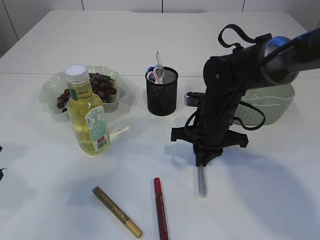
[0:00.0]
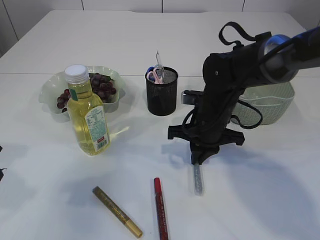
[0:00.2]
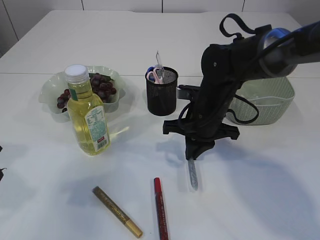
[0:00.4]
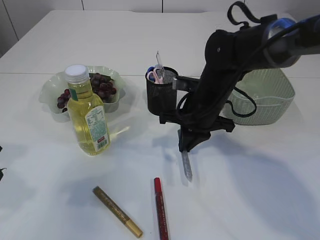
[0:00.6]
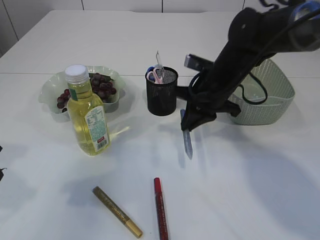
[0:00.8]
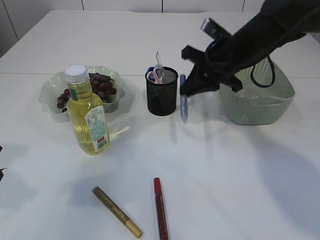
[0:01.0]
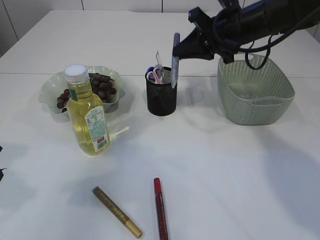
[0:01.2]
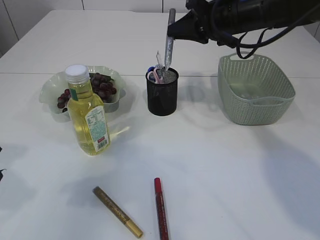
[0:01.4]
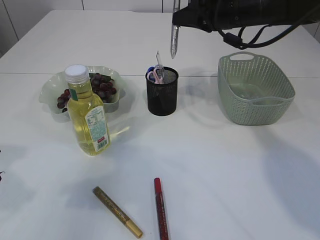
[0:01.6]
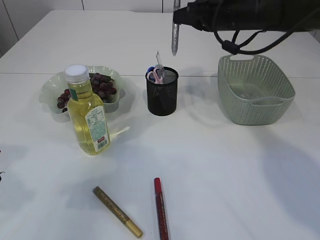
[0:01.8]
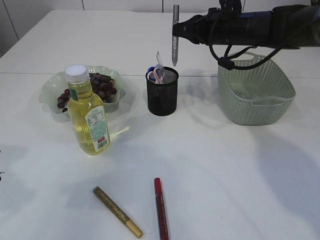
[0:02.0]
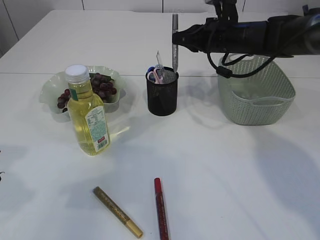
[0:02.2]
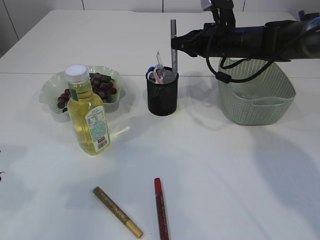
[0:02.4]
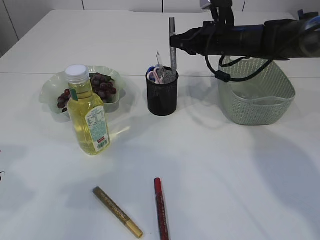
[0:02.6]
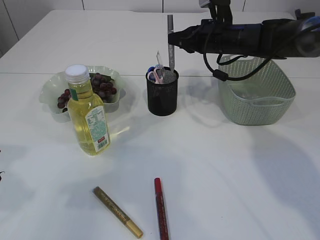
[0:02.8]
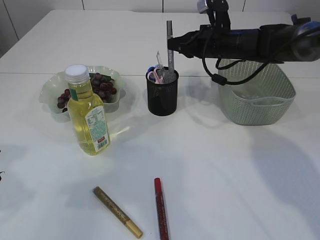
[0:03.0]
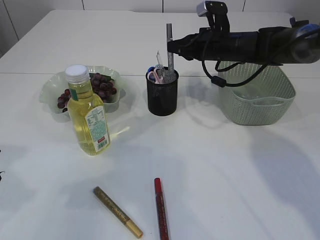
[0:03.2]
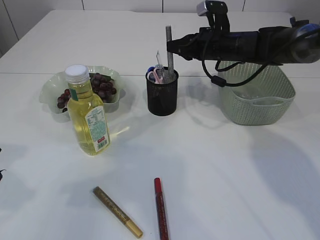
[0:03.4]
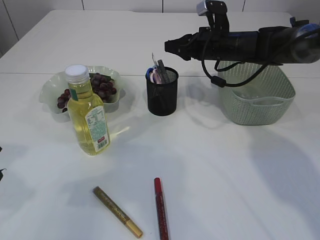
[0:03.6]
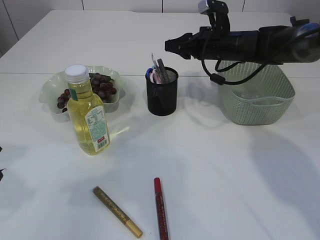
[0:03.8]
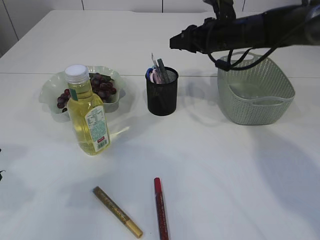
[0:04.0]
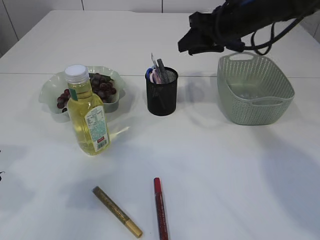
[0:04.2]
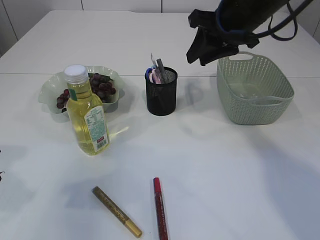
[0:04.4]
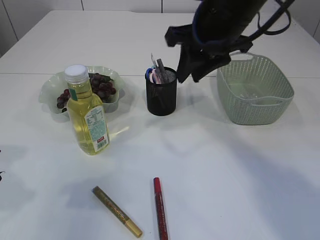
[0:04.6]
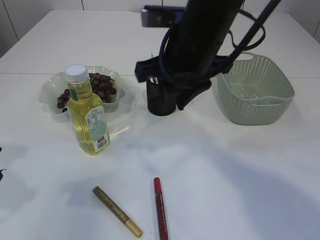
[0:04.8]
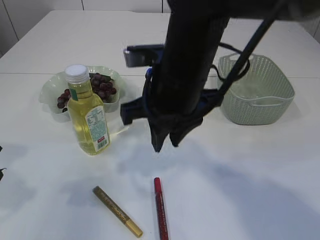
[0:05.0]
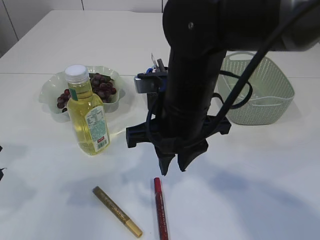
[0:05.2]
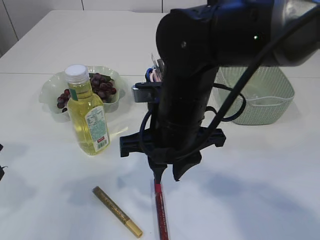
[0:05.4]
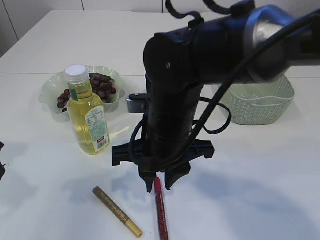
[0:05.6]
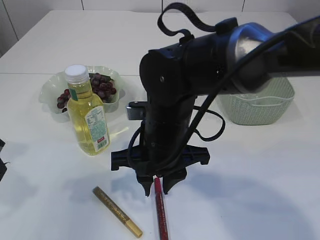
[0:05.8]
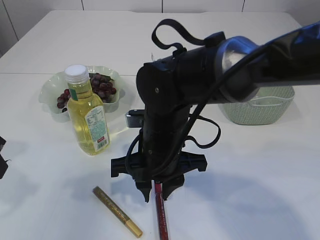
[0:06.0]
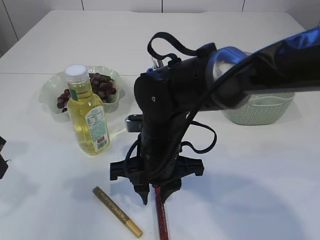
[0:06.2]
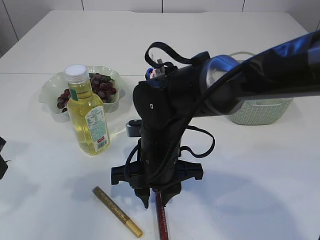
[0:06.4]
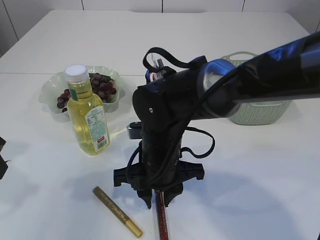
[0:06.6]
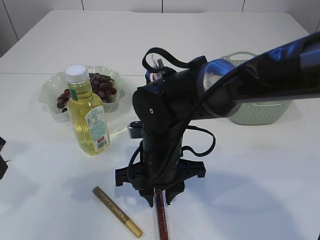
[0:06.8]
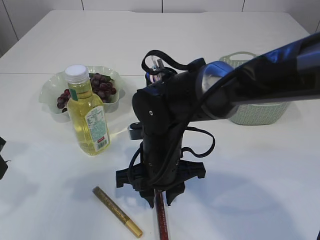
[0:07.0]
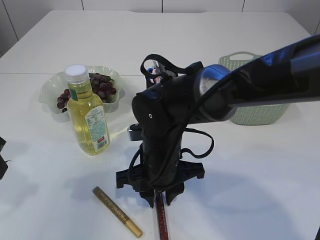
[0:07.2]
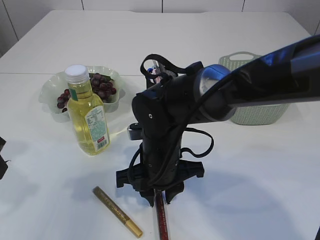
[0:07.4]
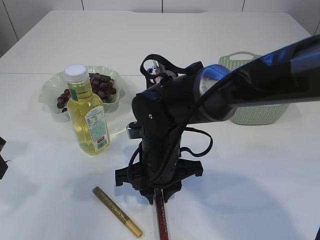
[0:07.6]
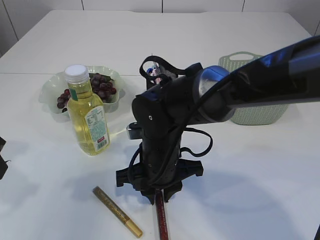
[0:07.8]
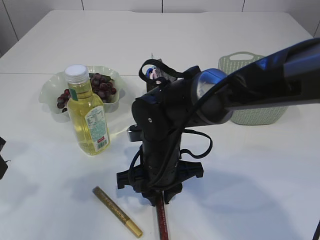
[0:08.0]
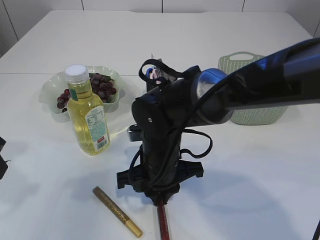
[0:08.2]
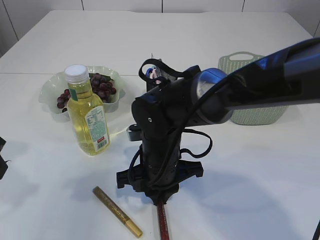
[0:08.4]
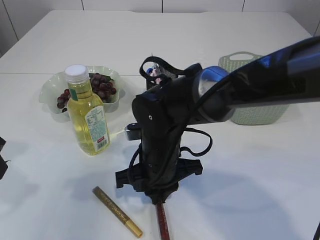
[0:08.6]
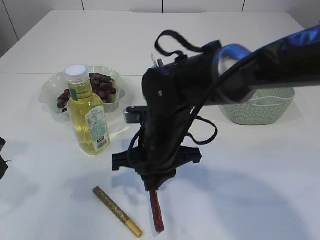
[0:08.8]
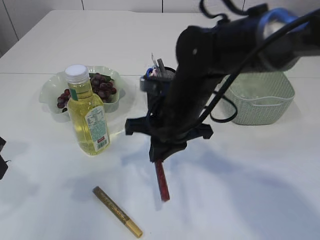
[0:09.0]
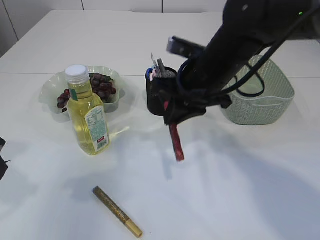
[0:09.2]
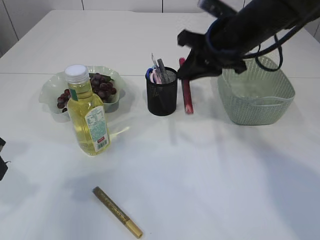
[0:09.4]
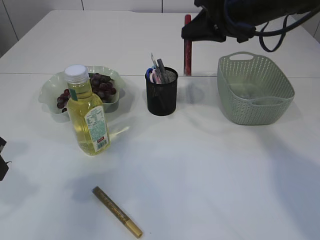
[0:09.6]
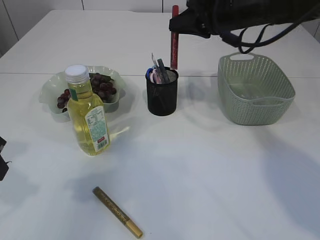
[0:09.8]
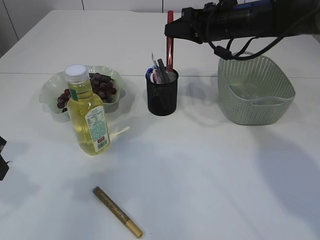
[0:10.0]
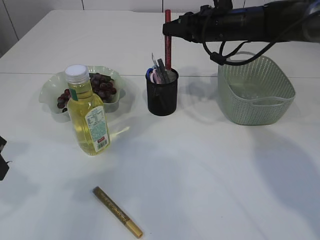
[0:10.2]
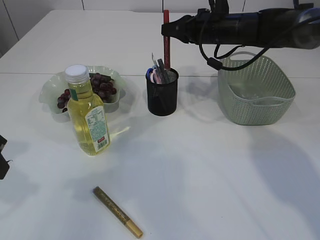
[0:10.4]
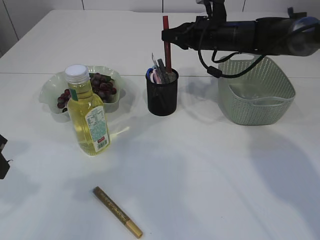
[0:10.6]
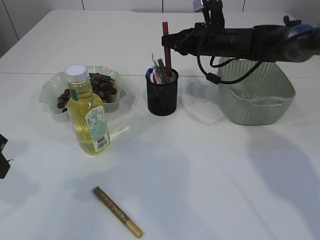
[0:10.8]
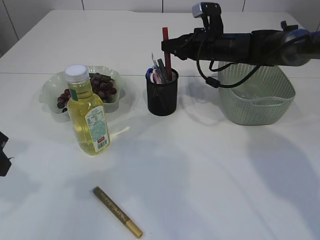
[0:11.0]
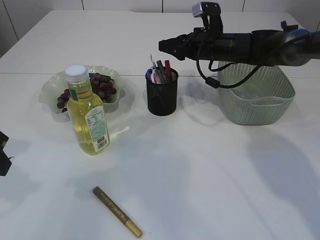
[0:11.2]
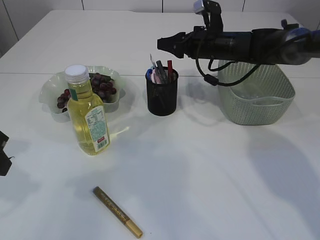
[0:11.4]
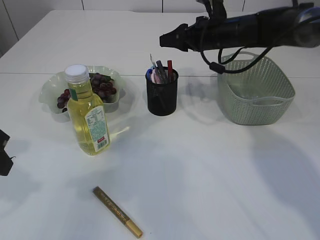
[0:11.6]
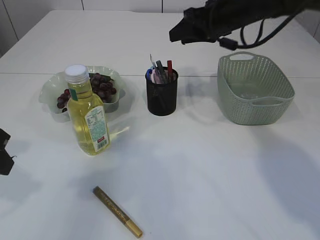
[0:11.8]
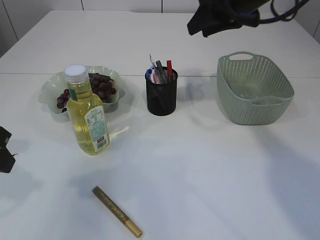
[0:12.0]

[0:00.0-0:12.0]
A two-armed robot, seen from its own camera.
Step, 0:00.8 to 0:04.0: place the silver glue into the pen holder.
Step, 0:04.2 to 0:09.0: pick up the red glue.
Step, 0:09.2 to 0:11.8: place the red glue into the pen holder.
0:00.0 to 0:01.6: The right gripper is displaced upward and forward by about 20 cm.
0:01.6 to 0:03.0: The right gripper moves downward, about 10 cm.
0:03.0 to 0:04.4: The right gripper moves upward and backward, roughly 15 cm, and opens its fingers.
0:04.4 to 0:06.0: The right gripper moves to the left, downward and backward, about 25 cm.
0:06.0 to 0:07.6: The grippers make only small movements.
0:07.6 to 0:09.0: The right gripper moves upward, some 5 cm.
0:09.0 to 0:10.4: The right gripper goes roughly 20 cm forward and to the right.
0:10.4 to 0:12.0: The right gripper heads upward and backward, covering approximately 10 cm, and opens.

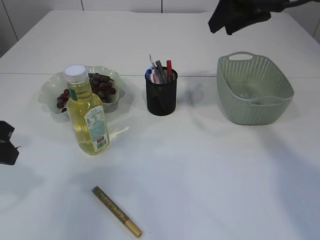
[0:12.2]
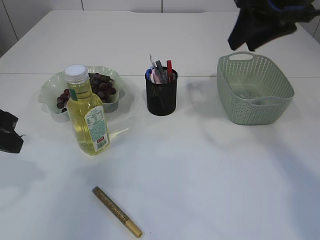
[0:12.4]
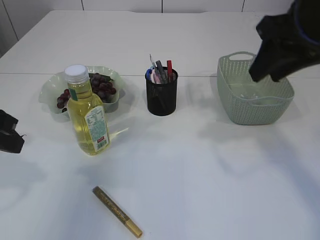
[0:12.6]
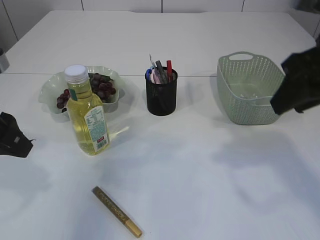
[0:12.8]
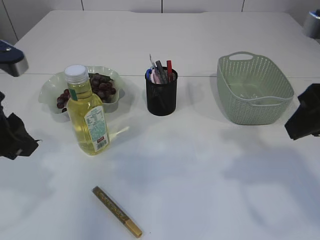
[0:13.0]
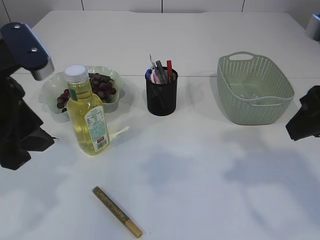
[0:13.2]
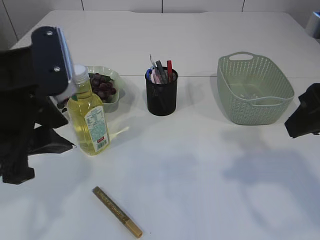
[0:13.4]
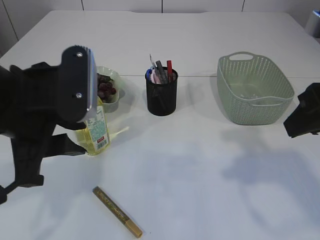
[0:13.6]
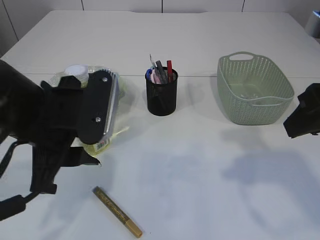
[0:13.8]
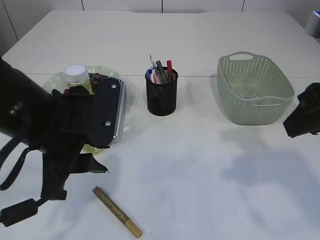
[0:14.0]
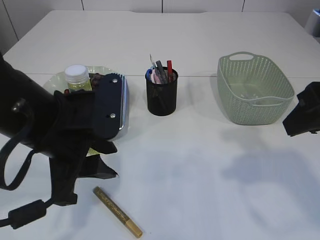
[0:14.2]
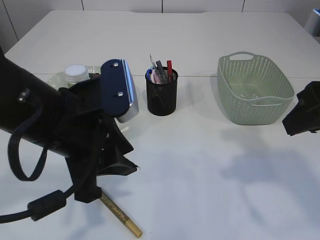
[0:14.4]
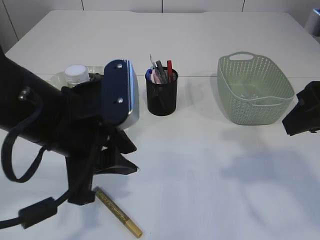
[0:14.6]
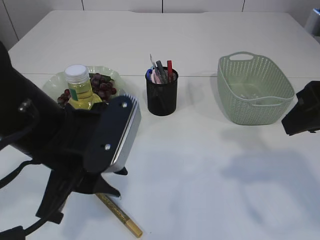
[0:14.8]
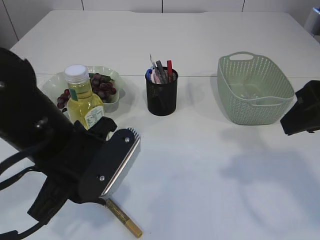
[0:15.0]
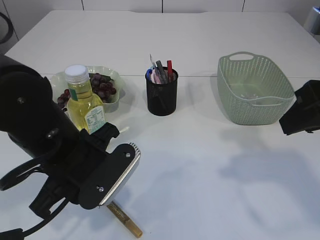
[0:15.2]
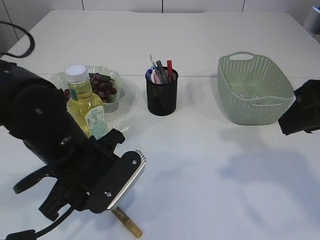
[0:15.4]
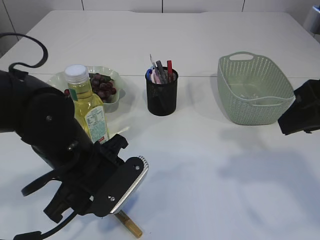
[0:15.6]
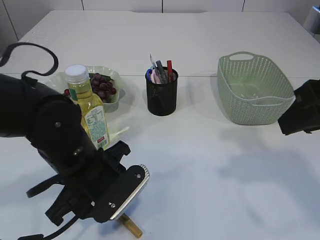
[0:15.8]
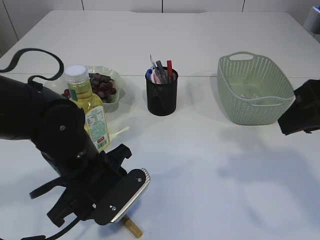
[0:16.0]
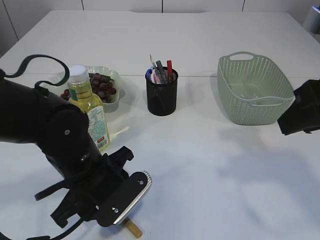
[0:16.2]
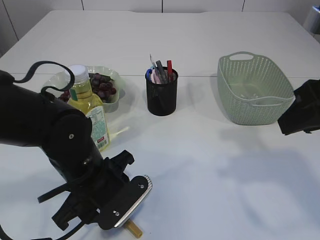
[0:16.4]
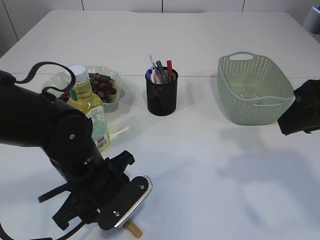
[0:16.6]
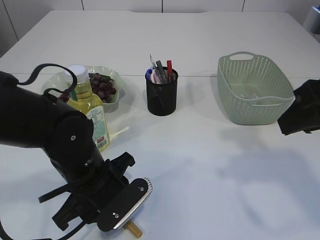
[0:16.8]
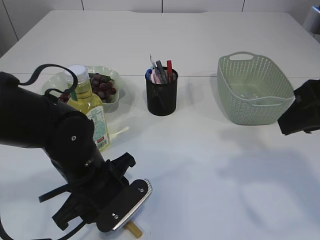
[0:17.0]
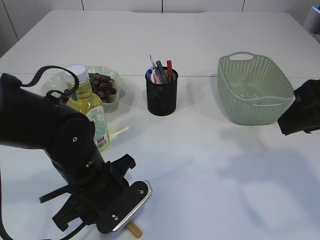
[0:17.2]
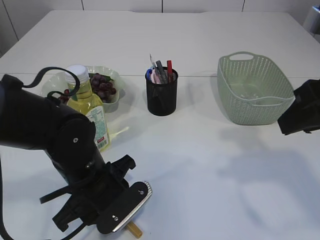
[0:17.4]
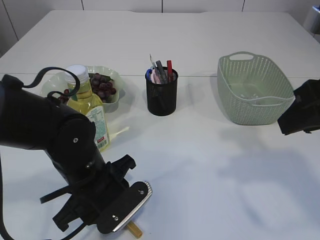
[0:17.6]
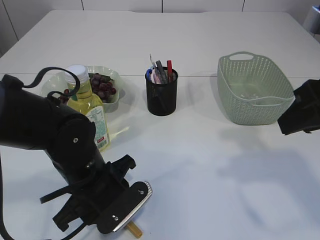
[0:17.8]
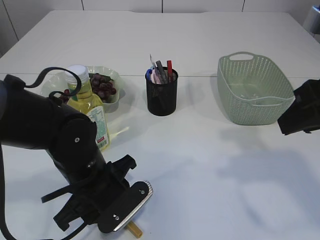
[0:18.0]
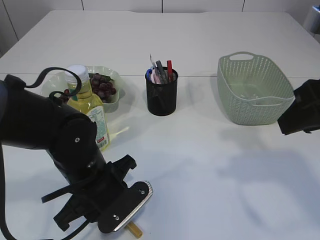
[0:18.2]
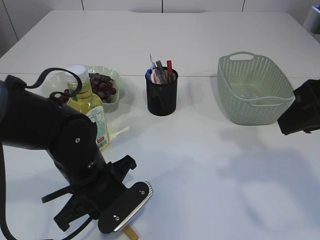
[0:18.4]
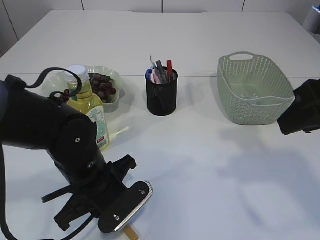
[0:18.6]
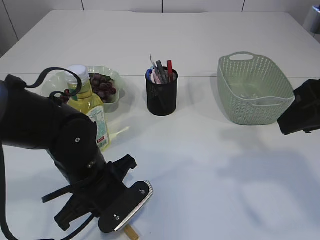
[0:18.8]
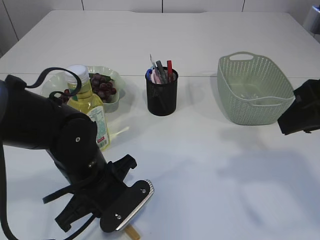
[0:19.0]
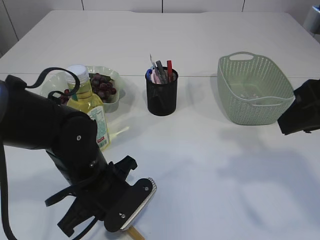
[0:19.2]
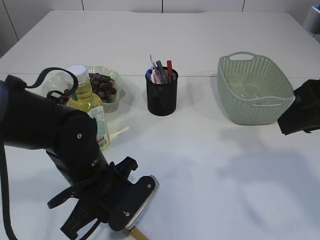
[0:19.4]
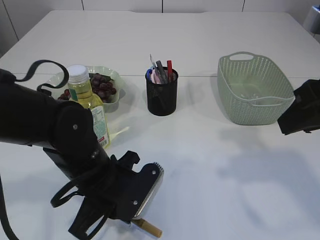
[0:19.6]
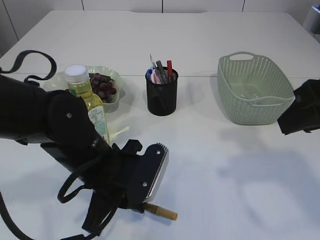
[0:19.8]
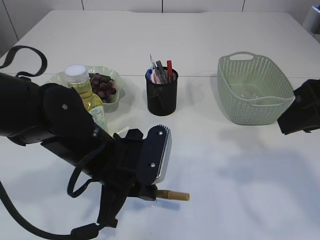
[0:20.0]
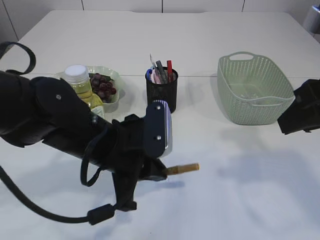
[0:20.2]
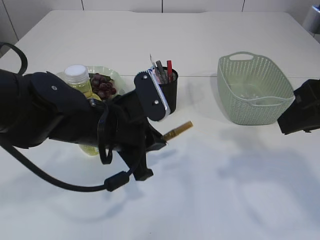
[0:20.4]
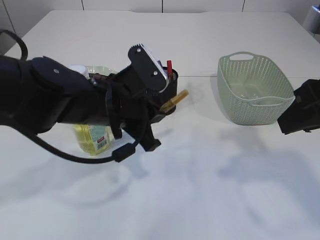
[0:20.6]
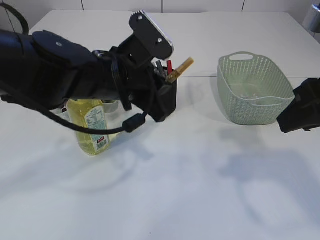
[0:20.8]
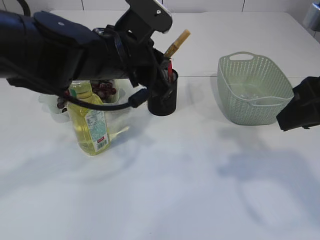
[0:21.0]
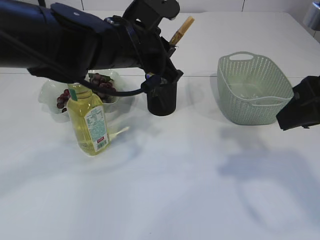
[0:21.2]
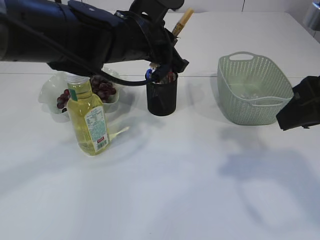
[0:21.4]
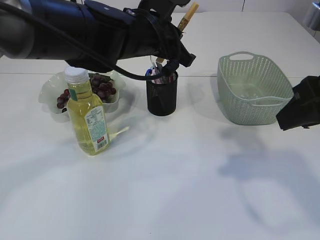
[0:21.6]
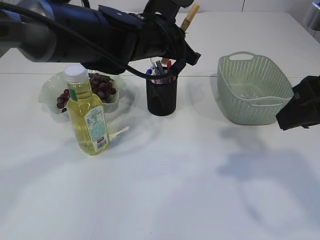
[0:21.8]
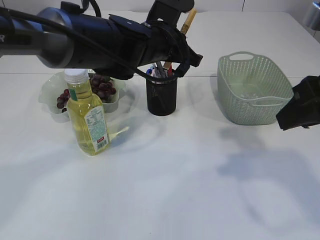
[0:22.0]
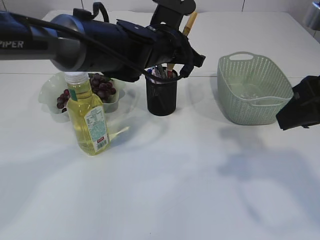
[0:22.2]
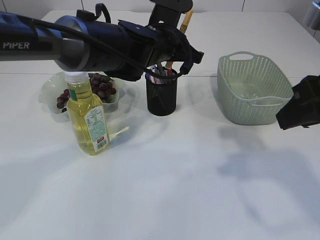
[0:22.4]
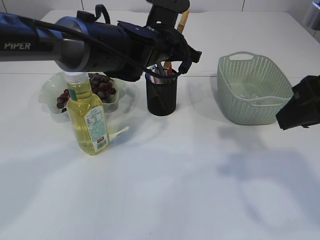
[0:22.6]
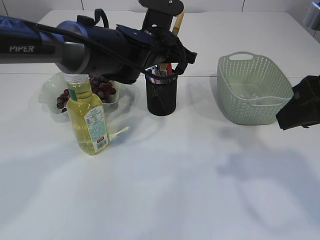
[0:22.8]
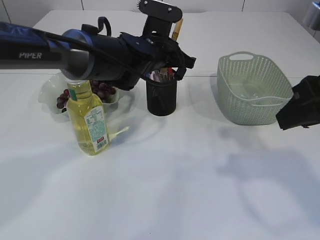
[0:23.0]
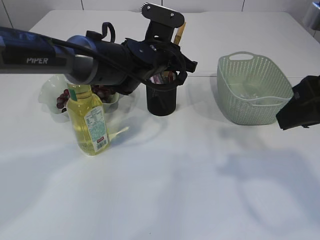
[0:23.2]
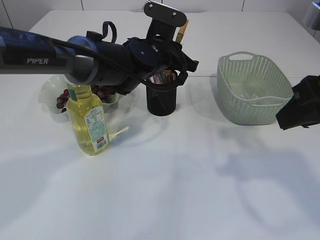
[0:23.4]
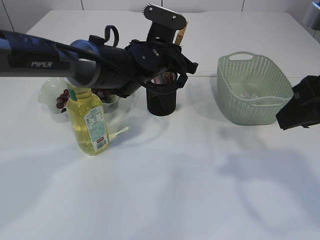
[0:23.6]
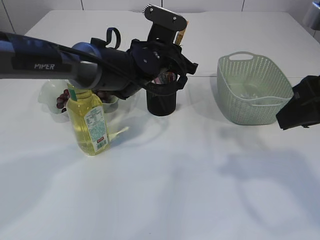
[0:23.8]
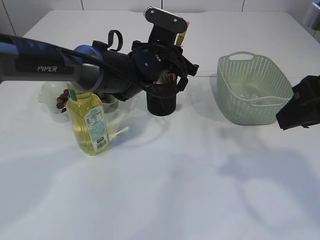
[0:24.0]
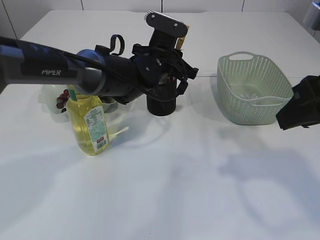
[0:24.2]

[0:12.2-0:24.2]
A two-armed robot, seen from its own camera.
Step, 0:12.2 to 0:20.2: pick up the yellow glue.
0:12.2 to 0:13.8: The right gripper goes some 15 cm backward. The left gripper travels to the right by roughly 10 cm.
0:13.8 to 0:15.2: The left gripper shifts some 5 cm downward.
0:15.2 to 0:16.6: The left gripper goes roughly 5 cm downward.
0:16.6 to 0:18.2: Neither gripper changes place.
0:18.2 to 0:19.8: The left gripper closes.
0:19.8 to 0:21.2: The left gripper heads upward and forward, covering some 15 cm.
0:21.2 to 0:22.6: The left gripper moves forward, roughly 10 cm.
0:22.6 to 0:24.2: The left gripper moves some 5 cm.
